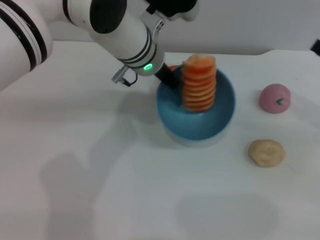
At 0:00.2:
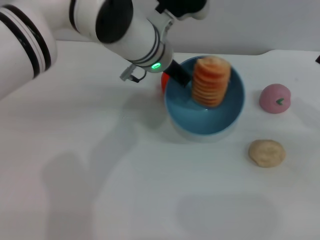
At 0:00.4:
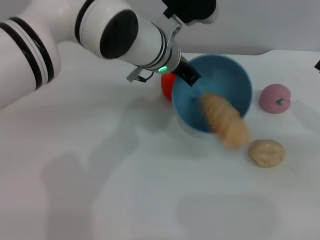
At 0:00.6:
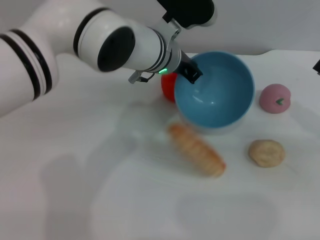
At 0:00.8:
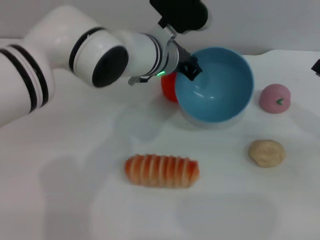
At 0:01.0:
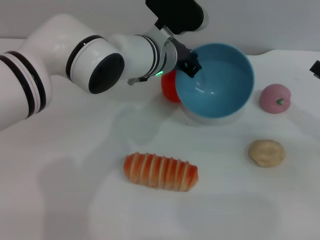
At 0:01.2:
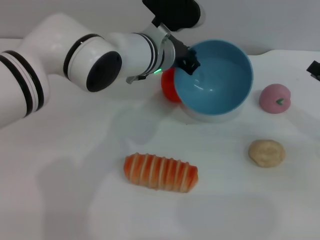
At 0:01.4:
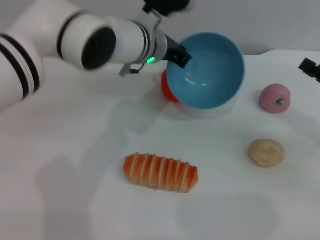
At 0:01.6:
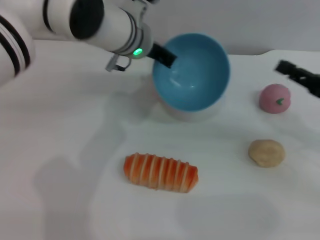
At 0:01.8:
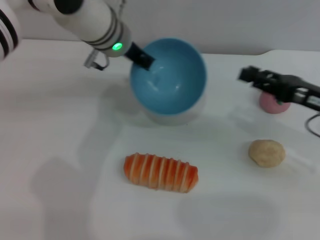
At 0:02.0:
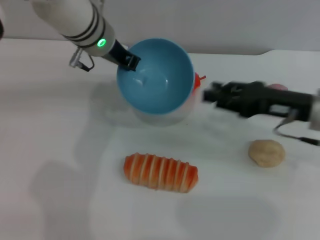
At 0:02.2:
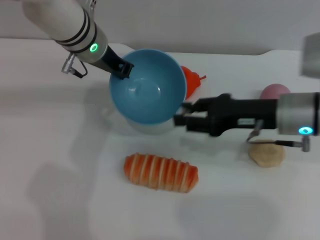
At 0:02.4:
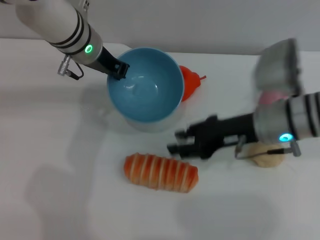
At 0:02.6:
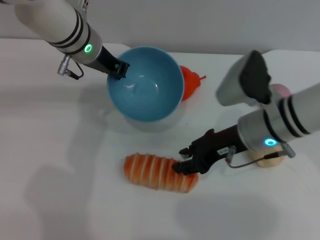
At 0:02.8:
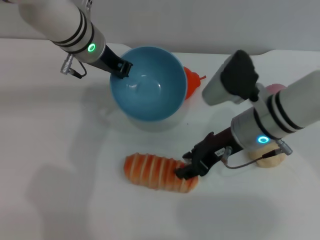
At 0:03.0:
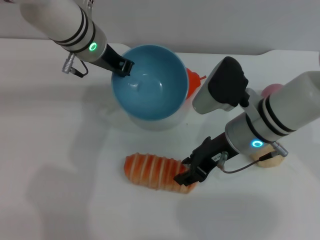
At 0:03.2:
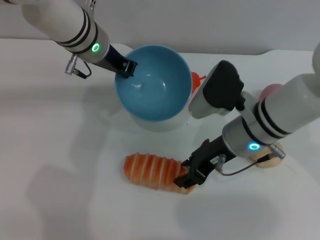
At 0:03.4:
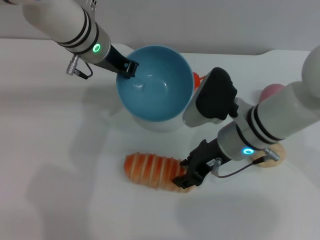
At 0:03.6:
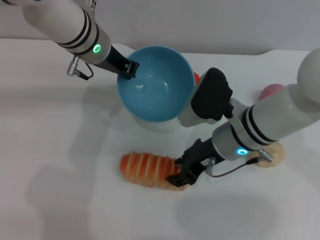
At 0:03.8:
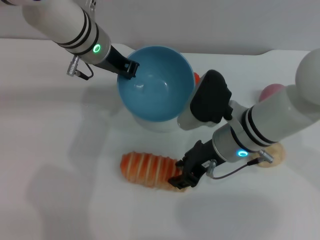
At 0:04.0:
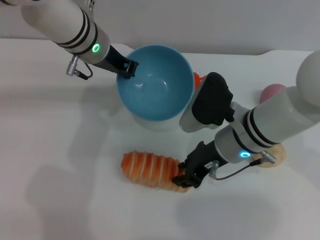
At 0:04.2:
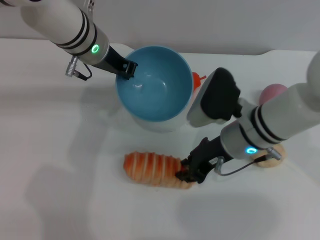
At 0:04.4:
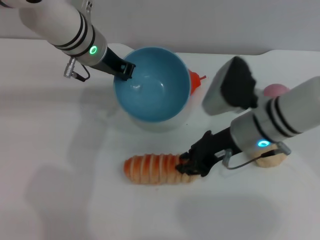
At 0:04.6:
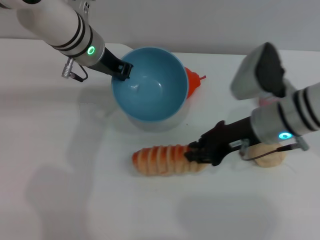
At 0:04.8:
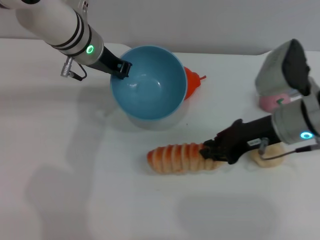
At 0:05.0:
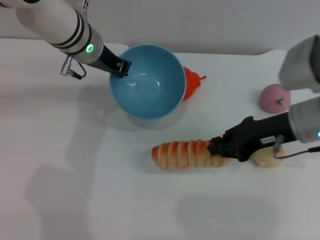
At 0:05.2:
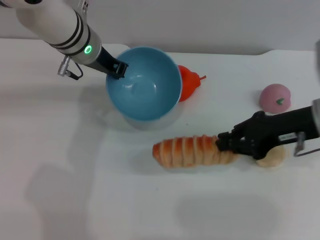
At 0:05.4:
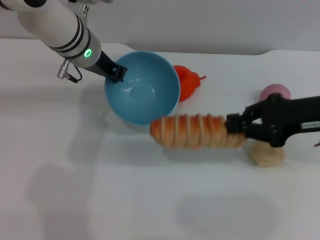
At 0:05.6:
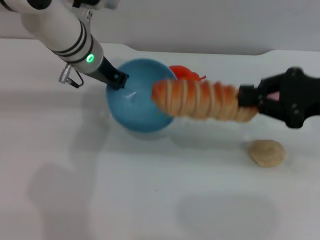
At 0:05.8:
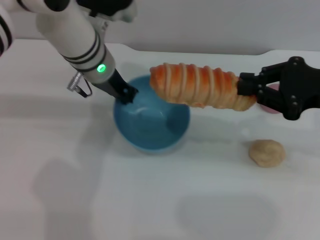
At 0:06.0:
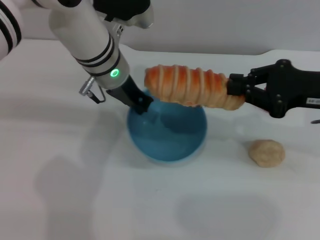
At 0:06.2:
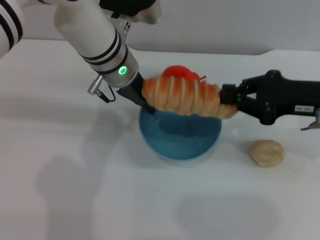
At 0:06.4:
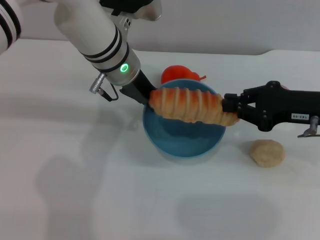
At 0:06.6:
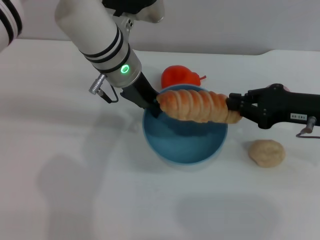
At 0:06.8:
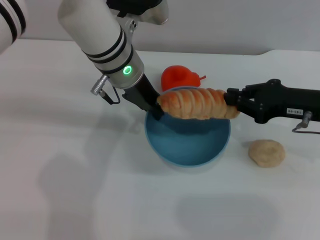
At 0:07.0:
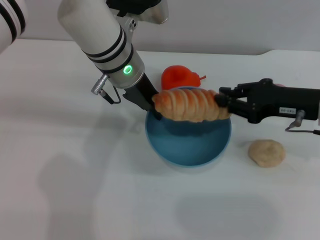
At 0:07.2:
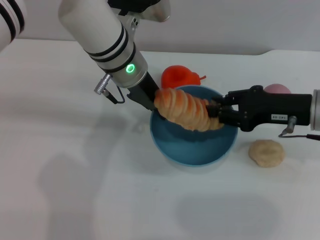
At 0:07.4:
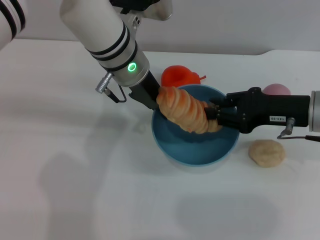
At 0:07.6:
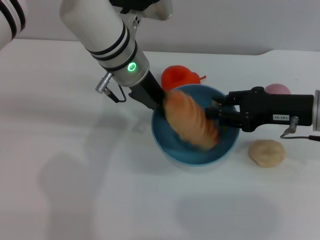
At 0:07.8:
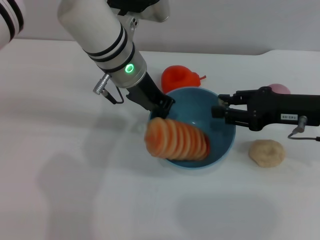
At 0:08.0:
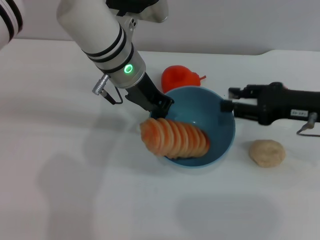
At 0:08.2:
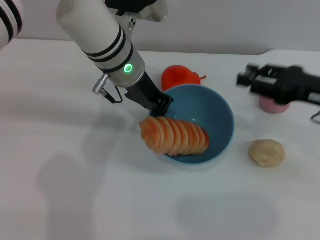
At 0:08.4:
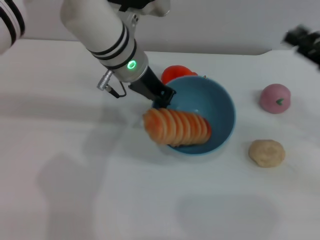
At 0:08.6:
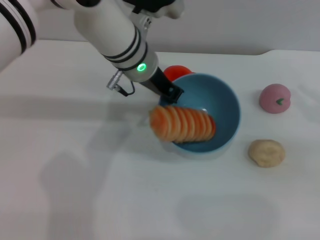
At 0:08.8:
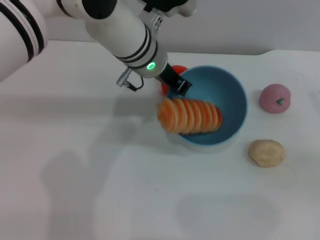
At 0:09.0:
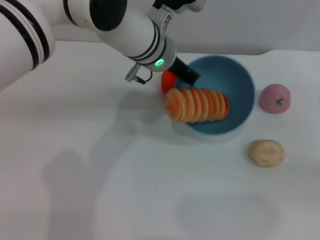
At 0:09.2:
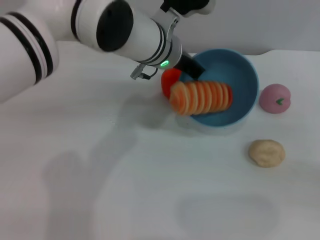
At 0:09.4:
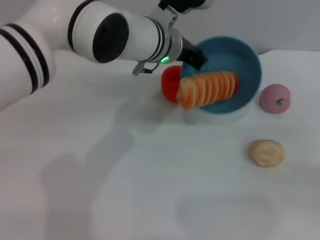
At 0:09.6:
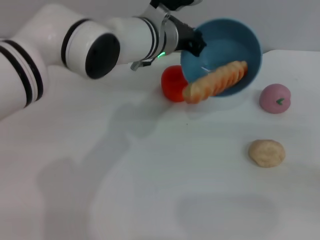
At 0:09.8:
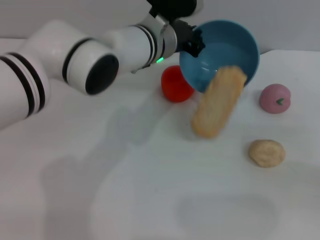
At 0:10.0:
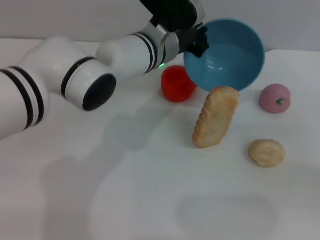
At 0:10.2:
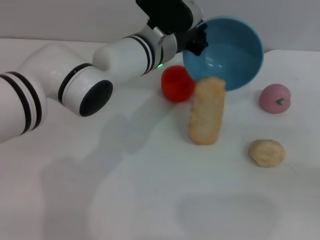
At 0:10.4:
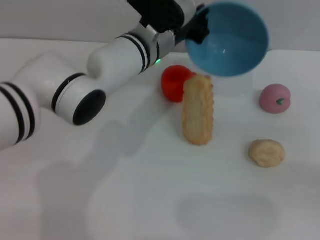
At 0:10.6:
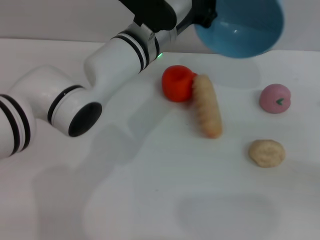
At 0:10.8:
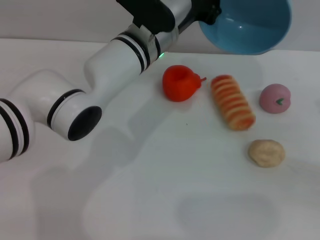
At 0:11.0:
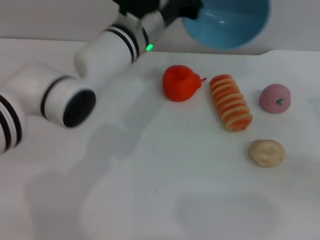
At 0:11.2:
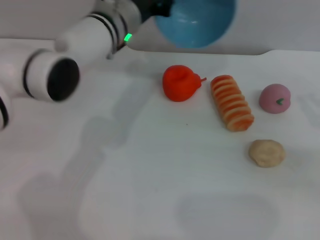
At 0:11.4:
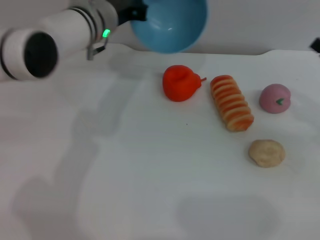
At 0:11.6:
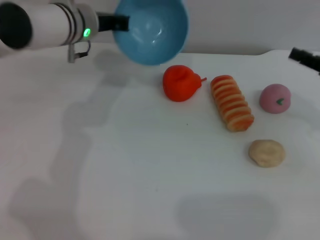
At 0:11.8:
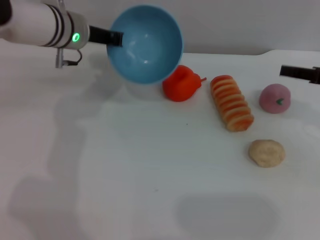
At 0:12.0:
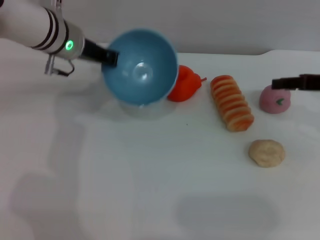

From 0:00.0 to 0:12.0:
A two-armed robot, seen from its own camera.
Task of the whole recording: put the bread into the blue bowl and pour it out repeatedly.
Step, from 0:01.0 to 0:04.8: Pick up the bread with the right gripper.
Step, from 0:05.0 to 0:08.0: Place the bread into the bowl.
Step, from 0:08.2 to 0:10.8: Pour the bread out of the bowl.
From 0:01.6 to 0:03.0: The right gripper heads to the left, covering about 20 cm. Meanwhile the left gripper moves to the left, roughly 5 cm.
From 0:03.0 to 0:04.4: The right gripper closes up.
From 0:04.4 to 0:06.0: The right gripper is displaced to the right and upward by approximately 15 cm, and closes.
From 0:06.0 to 0:07.6: The right gripper ends up some 5 cm from where it was, and opens up.
From 0:07.6 to 0:09.0: The right gripper travels to the right and backward by approximately 15 cm, and opens.
From 0:10.4 to 0:12.0: The left gripper heads to the left, covering some 15 cm. The right gripper heads forward, upward and to the left, covering approximately 15 cm.

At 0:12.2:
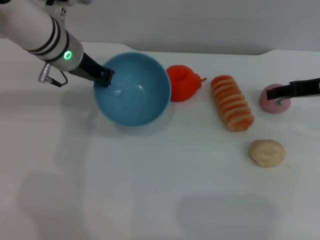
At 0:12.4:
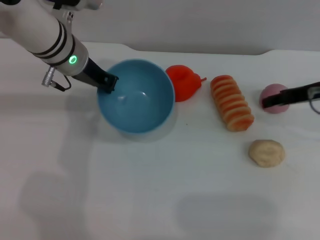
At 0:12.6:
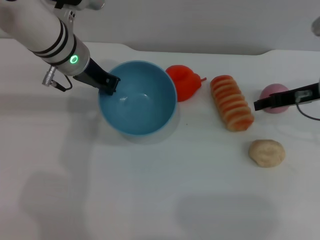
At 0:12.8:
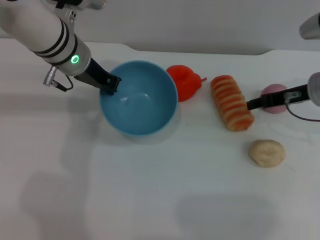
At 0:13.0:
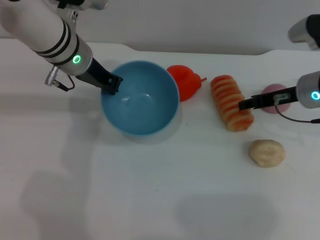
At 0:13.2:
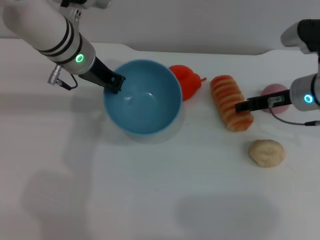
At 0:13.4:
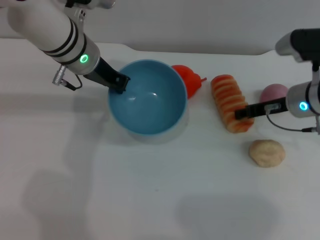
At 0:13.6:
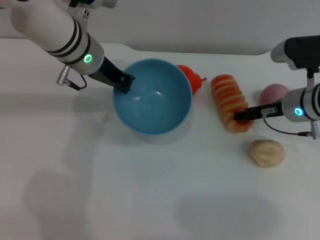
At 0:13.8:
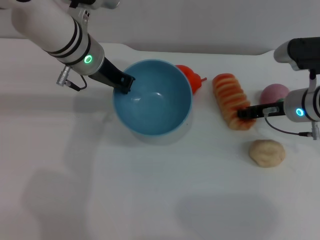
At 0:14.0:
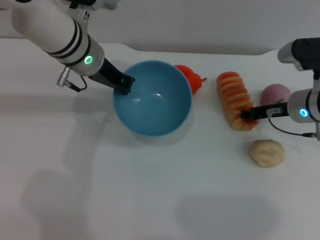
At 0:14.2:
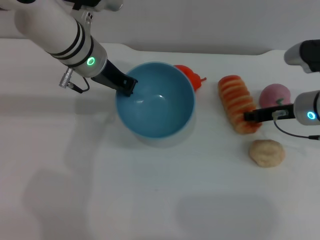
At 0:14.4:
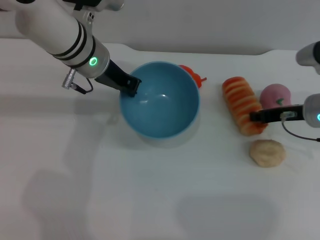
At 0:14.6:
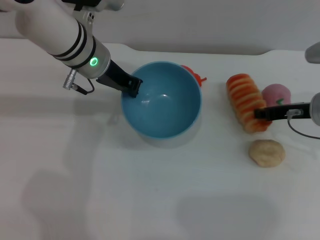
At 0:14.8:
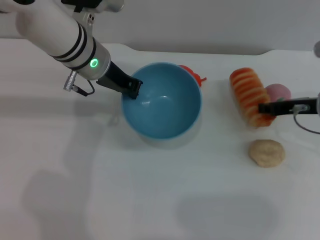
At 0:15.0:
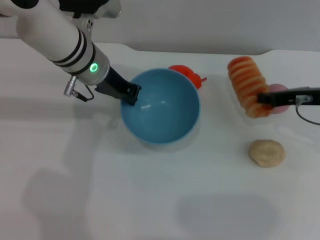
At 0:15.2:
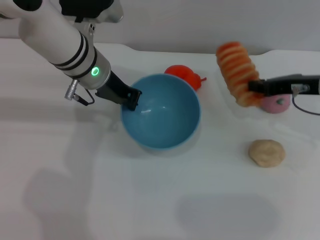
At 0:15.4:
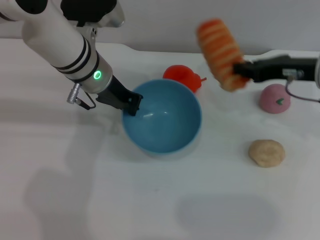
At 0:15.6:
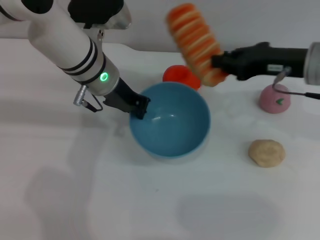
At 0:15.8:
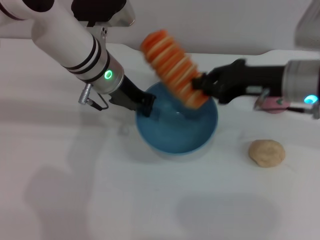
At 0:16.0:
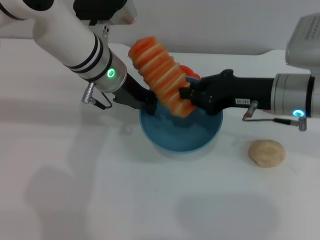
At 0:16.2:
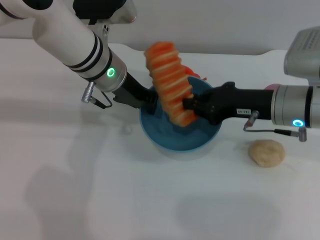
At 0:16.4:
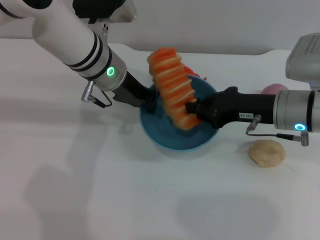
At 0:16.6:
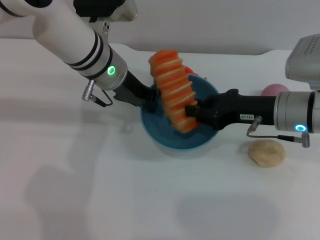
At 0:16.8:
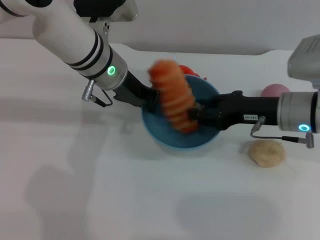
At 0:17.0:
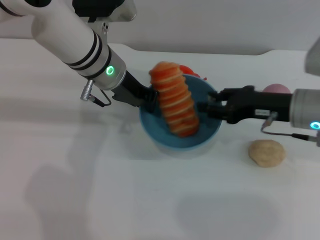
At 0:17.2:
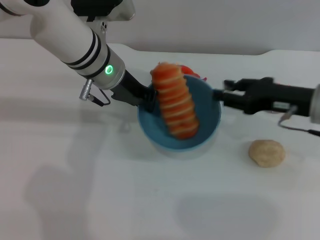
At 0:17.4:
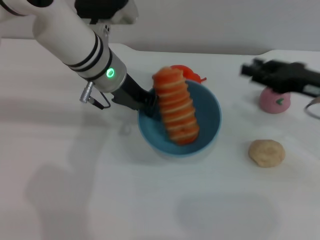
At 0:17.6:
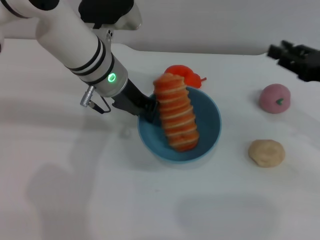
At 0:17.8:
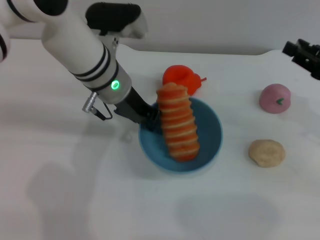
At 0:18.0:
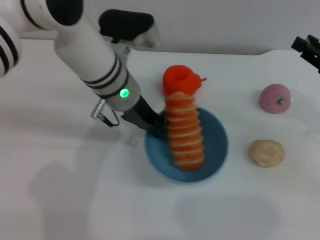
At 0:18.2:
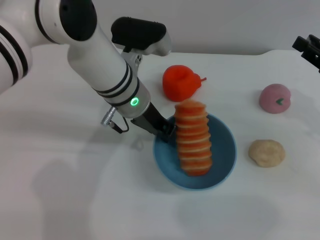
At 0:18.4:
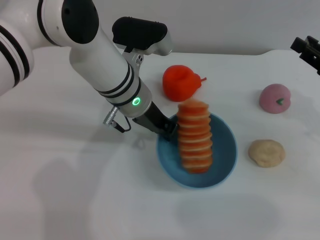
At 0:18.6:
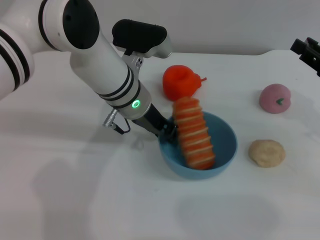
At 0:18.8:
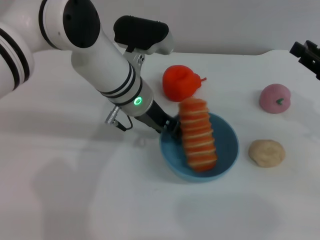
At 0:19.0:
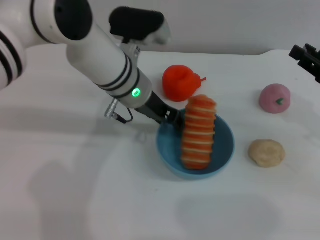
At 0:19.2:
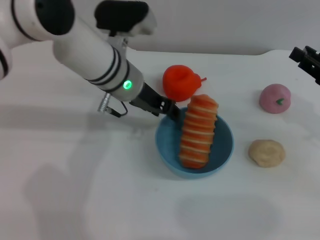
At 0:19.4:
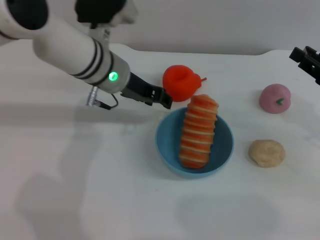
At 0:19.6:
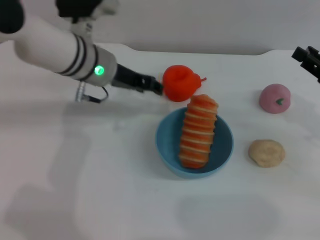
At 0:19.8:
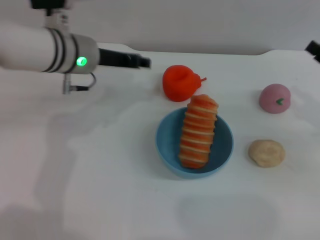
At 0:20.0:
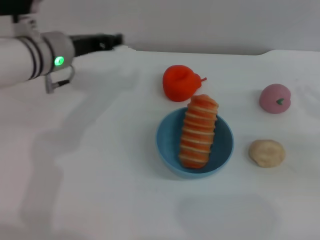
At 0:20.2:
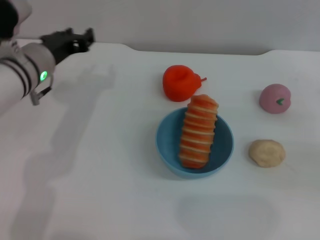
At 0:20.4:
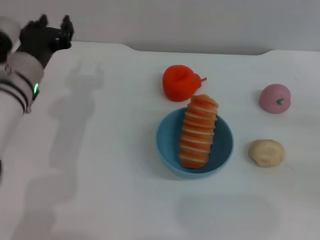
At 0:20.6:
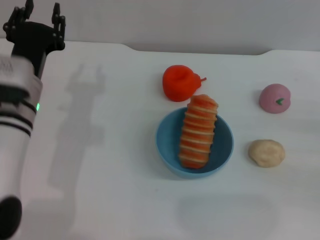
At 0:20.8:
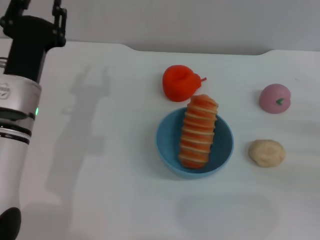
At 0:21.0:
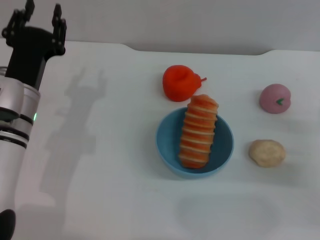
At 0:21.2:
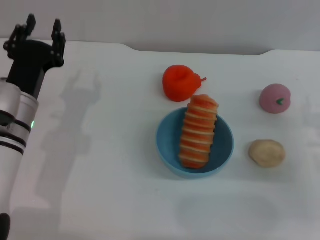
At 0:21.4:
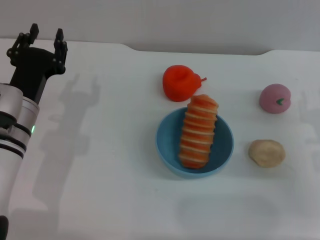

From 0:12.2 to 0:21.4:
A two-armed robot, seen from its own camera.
Task of the whole recording: put the bread into the blue bowl and pour it out repeatedly.
Step, from 0:12.2 to 0:15.0: Pick up the bread with the right gripper.
Step, from 0:15.2 to 0:17.0: Place the bread into the bowl.
Step, from 0:17.2 to 0:19.4: Place the bowl on the table.
From 0:12.2 to 0:13.8: The right gripper moves downward and to the left, approximately 10 cm.
From 0:13.8 to 0:15.2: The right gripper heads upward, covering roughly 5 cm, and closes its fingers.
From 0:15.2 to 0:16.8: The right gripper is displaced to the left by about 5 cm.
From 0:16.8 to 0:18.4: The left gripper shifts by approximately 5 cm; the right gripper heads to the right, covering roughly 10 cm, and opens.
From 0:18.4 to 0:19.8: The left gripper goes roughly 10 cm to the left, and opens.
From 0:19.8 to 0:21.4: The right gripper moves downward, approximately 5 cm. Meanwhile the left gripper heads backward, downward and to the left, covering roughly 15 cm.
